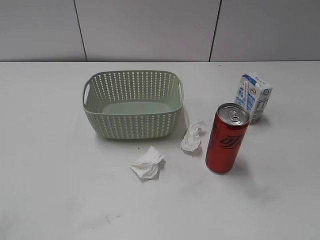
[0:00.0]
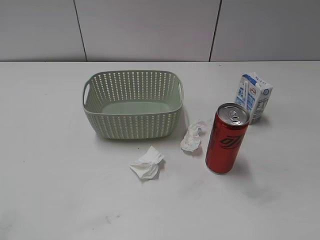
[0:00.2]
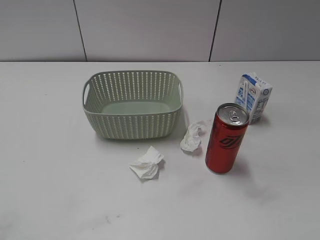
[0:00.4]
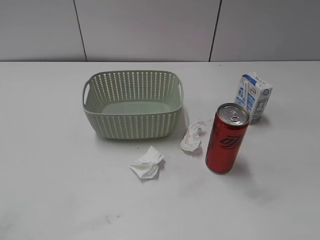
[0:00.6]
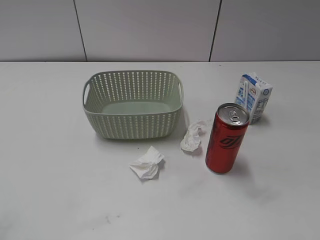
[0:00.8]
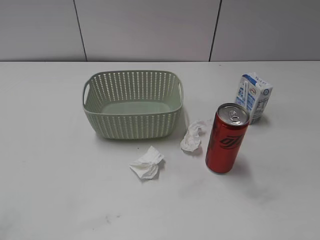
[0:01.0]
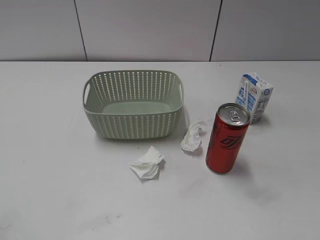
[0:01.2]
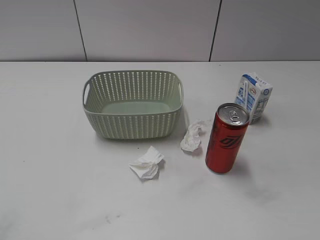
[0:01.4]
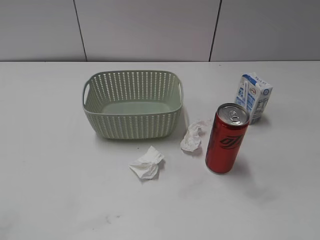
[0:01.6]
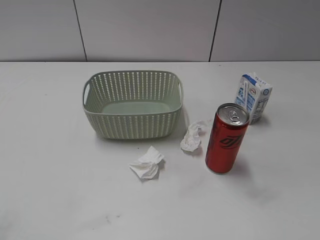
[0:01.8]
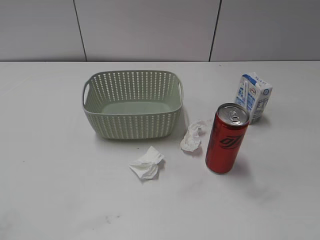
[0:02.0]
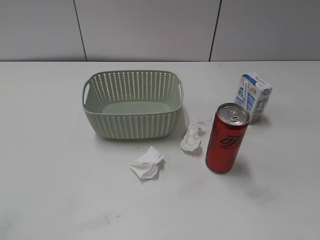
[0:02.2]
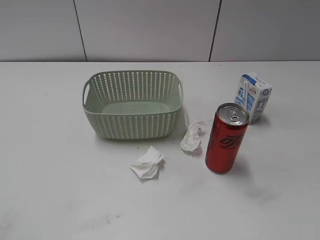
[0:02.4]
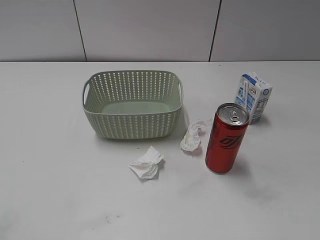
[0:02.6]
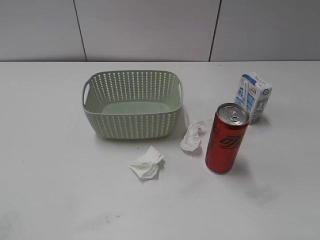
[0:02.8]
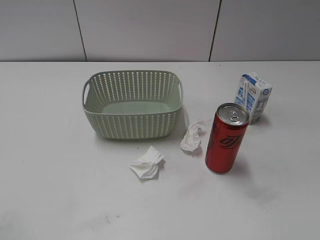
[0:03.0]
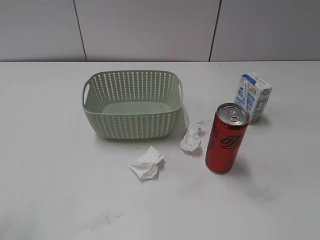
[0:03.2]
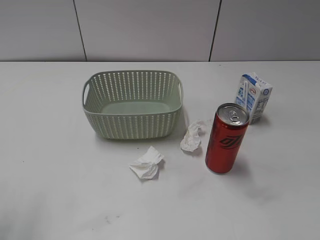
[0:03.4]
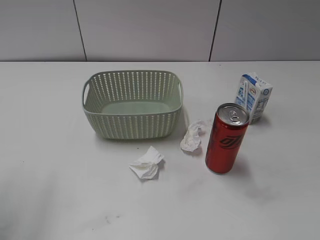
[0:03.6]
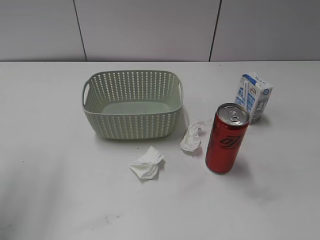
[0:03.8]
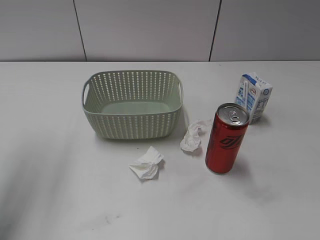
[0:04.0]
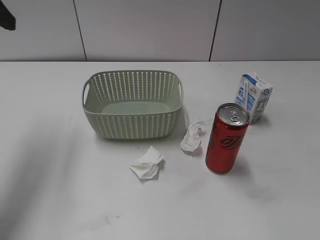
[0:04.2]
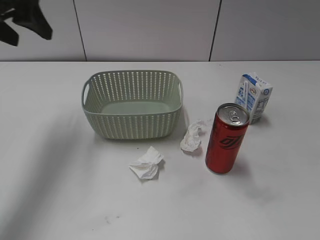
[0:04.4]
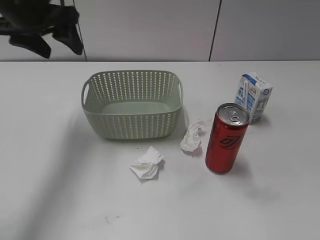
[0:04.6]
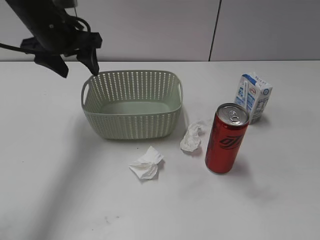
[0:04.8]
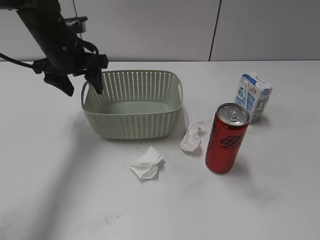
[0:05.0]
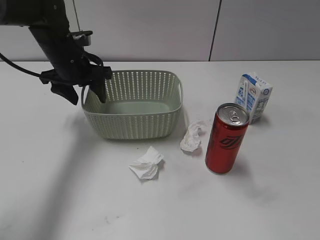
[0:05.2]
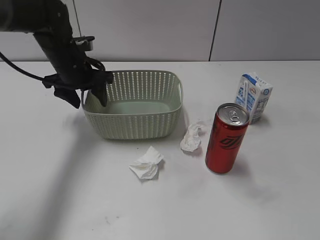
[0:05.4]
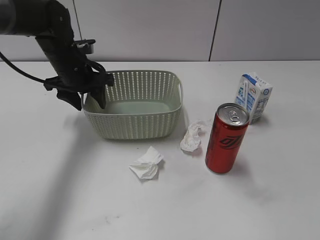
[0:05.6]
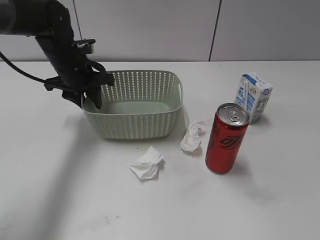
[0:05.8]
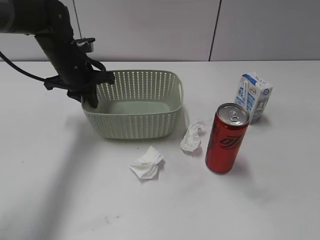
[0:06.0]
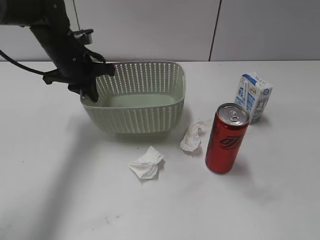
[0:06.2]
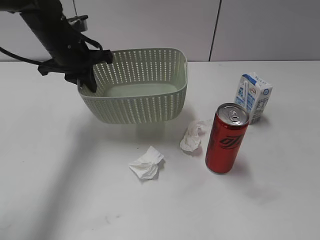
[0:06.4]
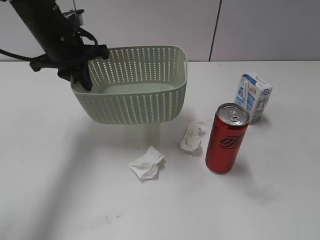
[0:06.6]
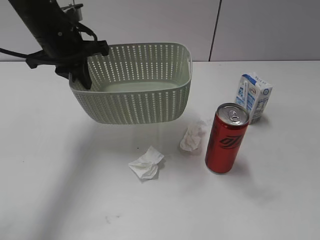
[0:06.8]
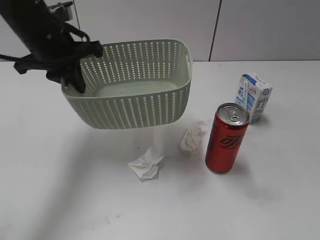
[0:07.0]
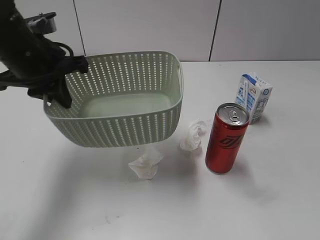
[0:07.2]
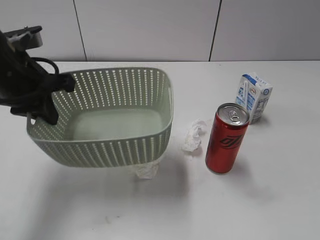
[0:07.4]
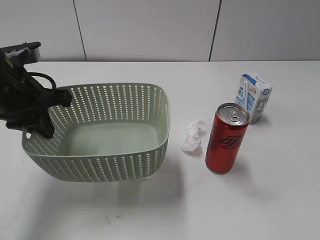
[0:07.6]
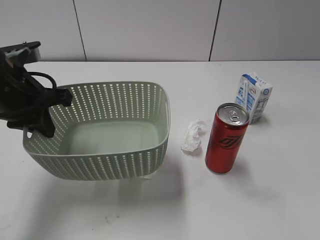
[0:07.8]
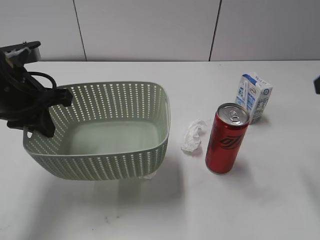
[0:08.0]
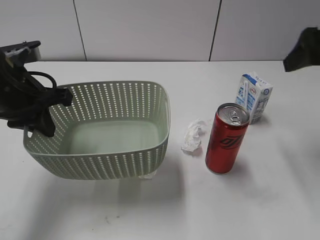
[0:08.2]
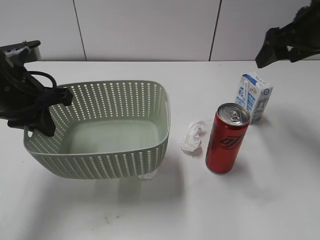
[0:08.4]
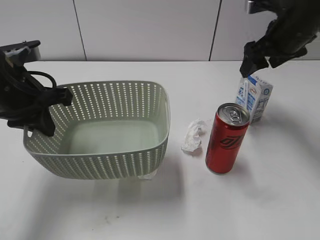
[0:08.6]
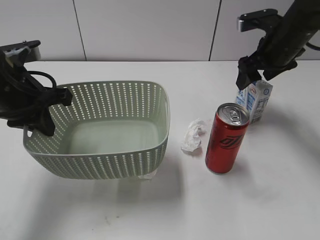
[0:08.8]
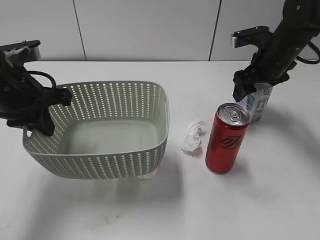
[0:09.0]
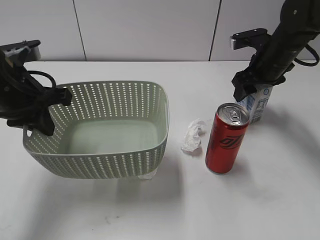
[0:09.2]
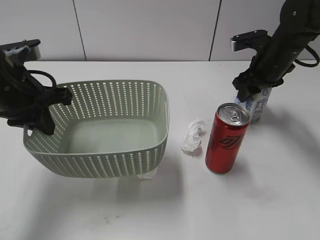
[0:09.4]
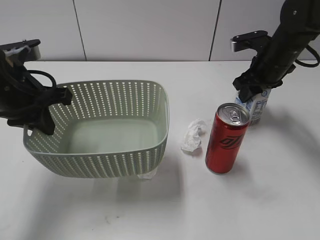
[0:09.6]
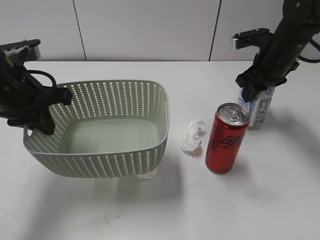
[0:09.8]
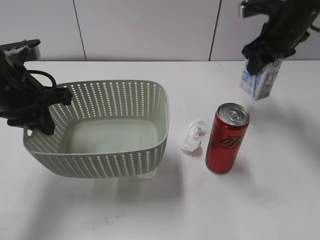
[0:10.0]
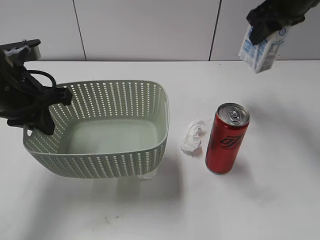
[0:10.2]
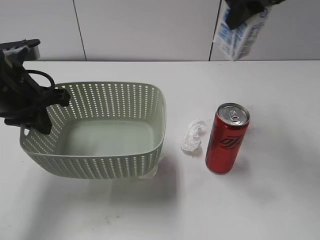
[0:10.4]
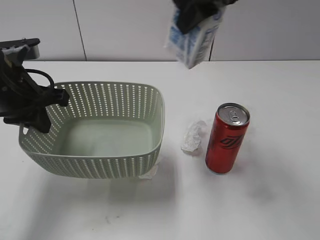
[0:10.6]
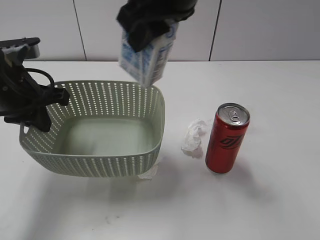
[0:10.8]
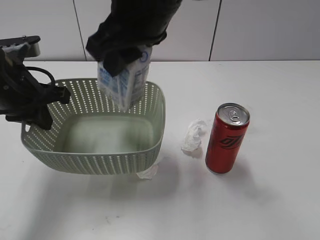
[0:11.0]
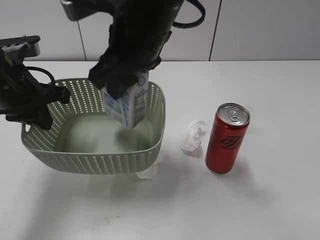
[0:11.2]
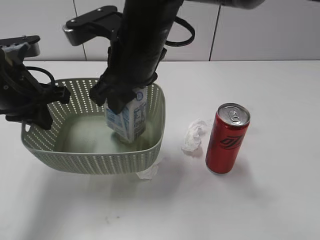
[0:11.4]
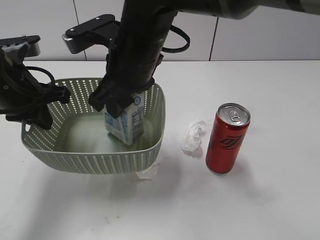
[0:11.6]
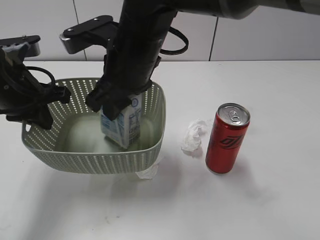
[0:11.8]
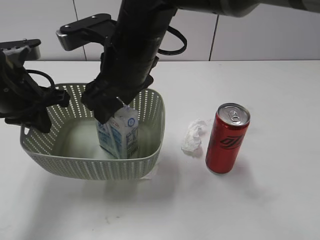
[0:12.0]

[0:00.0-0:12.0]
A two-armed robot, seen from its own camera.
Step, 4.2 to 6.0 s: Grasp the basket with left gripper.
Step, 6.2 to 7.6 s: Lift the basket with left gripper.
Step, 7.8 to 9.4 s: Grasp the milk with right gripper.
3.0 to 4.4 s: The left gripper heads forward, covering some 30 cm.
4.4 to 6.0 s: The left gripper is displaced downward, to the right and forward by some 20 cm, and closes.
6.0 to 7.6 s: The right gripper heads forward, covering approximately 10 cm. The left gripper goes approximately 15 cm backward.
7.6 to 9.0 s: The right gripper moves forward, about 35 cm.
9.0 to 10.4 s: The right gripper heads upward and to the left, covering roughly 20 cm, and closes up.
10.4 to 12.0 s: The right gripper goes some 20 cm to the left and downward, and opens its fingers.

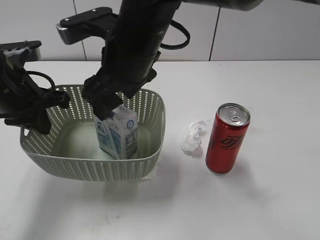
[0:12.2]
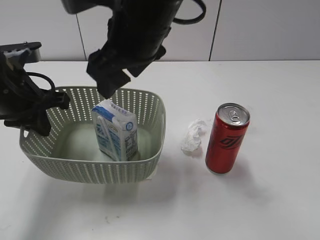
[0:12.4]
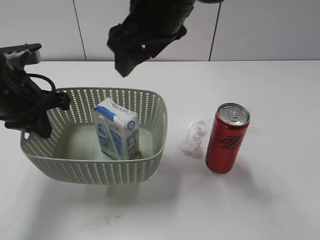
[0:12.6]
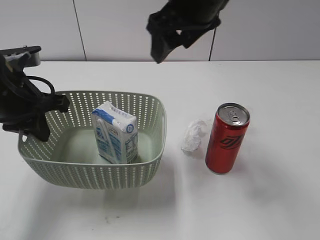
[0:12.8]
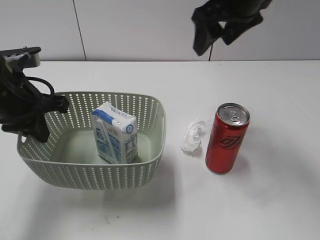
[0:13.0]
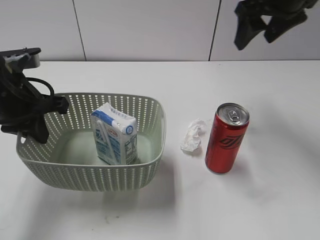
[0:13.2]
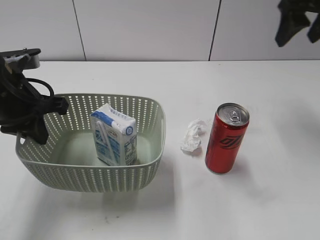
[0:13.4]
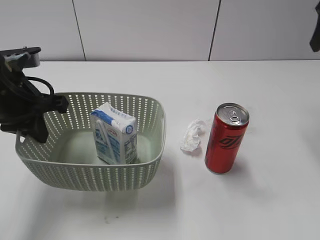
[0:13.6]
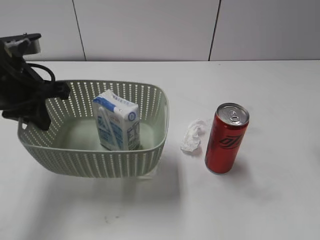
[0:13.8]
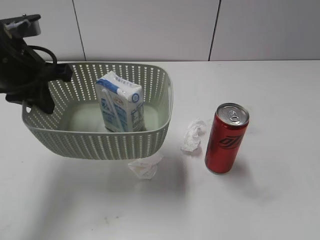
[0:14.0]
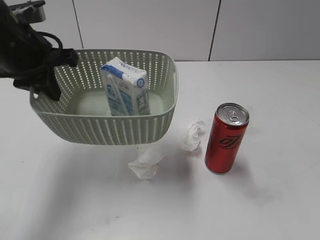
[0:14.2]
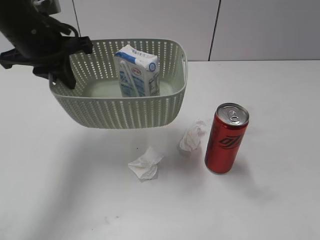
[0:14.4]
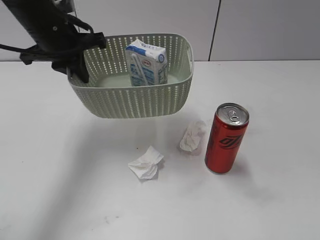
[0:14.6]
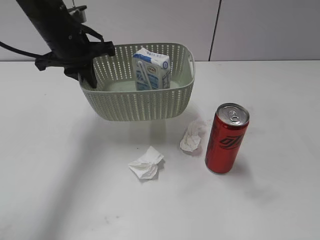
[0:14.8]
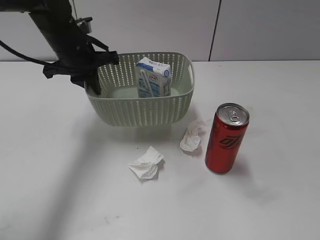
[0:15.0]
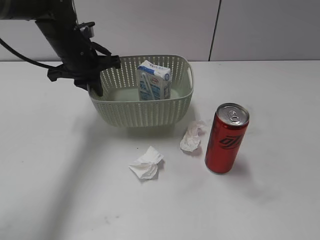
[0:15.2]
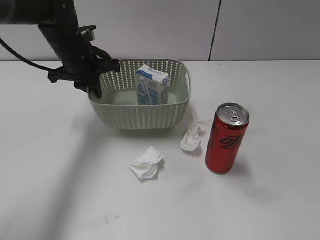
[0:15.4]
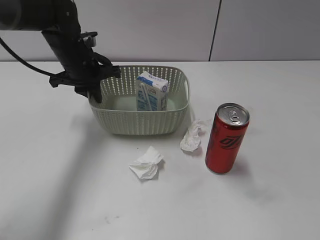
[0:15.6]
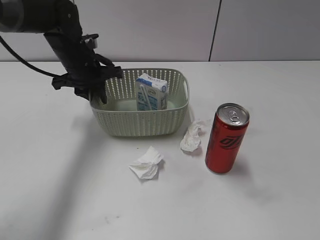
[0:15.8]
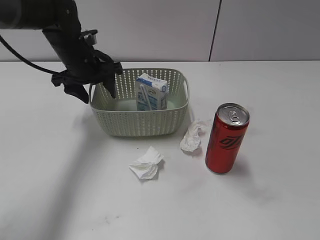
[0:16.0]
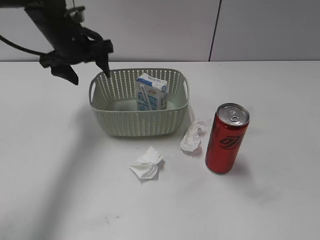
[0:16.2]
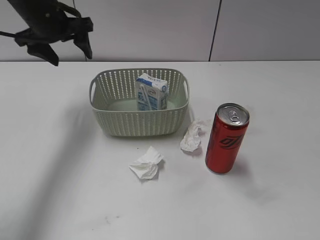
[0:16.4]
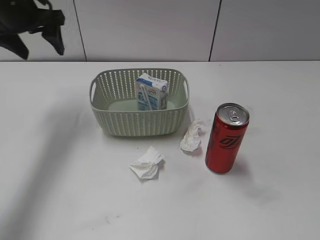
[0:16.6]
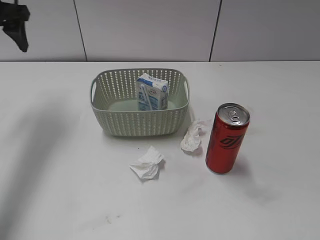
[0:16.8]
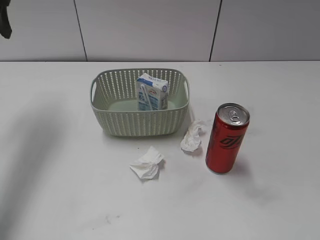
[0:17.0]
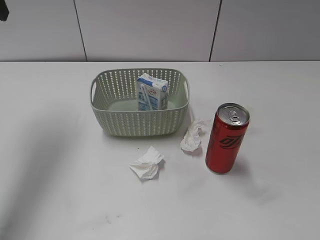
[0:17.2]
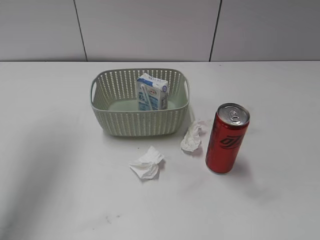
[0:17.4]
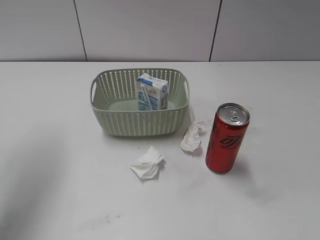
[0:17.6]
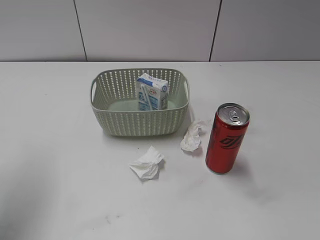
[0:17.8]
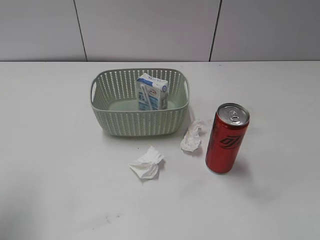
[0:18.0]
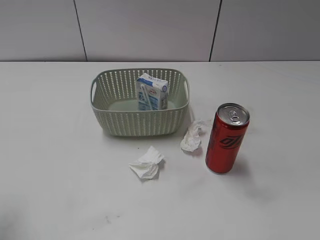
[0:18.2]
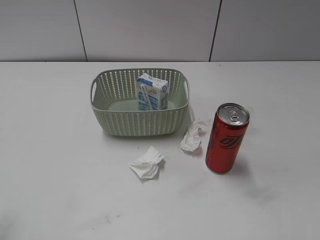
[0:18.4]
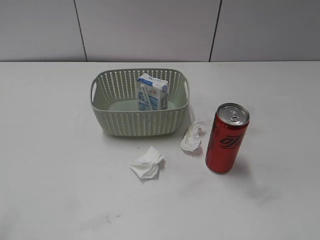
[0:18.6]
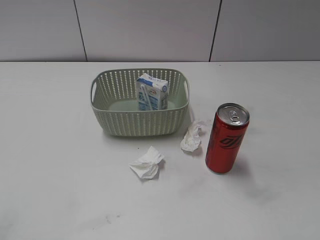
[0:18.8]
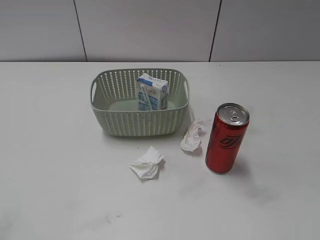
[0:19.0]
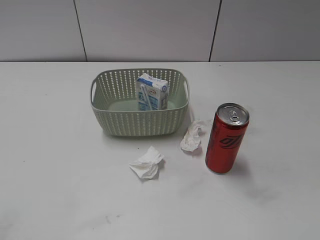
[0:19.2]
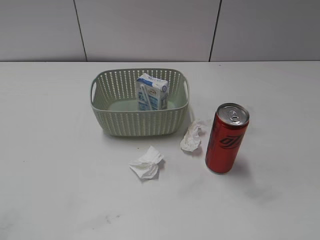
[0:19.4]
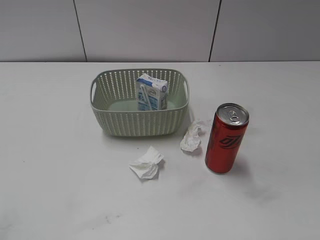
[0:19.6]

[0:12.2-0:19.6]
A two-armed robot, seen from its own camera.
Step, 12.4 to 16.2 s: Place the basket on the table with left gripper.
12.2 to 13.6 s: The right gripper is displaced to the right by roughly 35 cm.
13.6 to 15.2 s: The left gripper is displaced forward by roughly 15 cm; the right gripper goes roughly 35 cm backward.
15.2 to 16.6 s: The left gripper travels to the left and upward by about 15 cm, and opens.
16.6 to 18.2 s: The left gripper is displaced backward by some 30 cm.

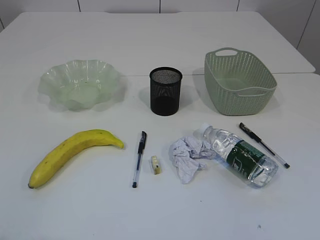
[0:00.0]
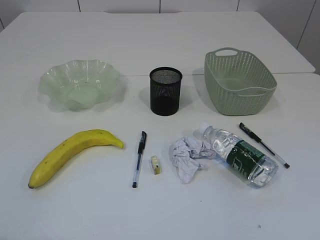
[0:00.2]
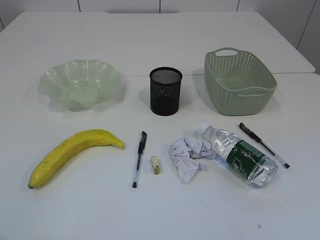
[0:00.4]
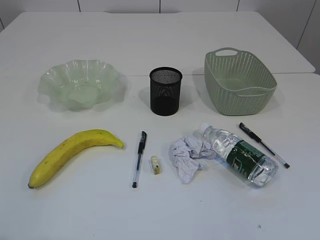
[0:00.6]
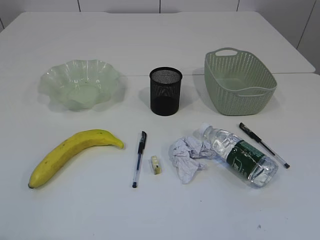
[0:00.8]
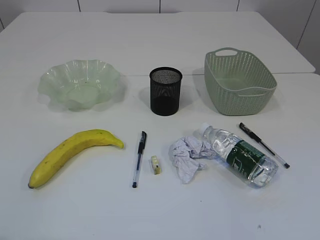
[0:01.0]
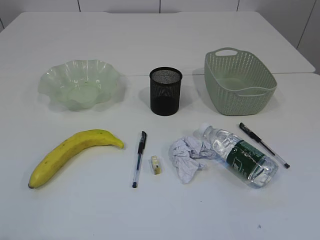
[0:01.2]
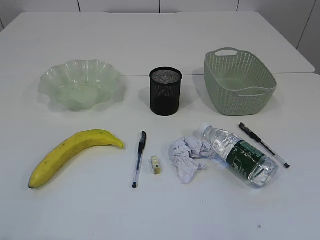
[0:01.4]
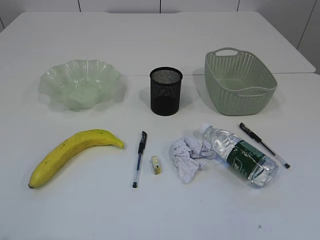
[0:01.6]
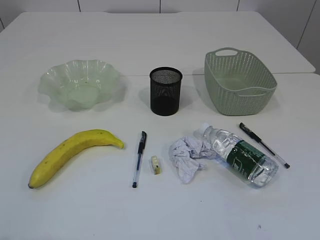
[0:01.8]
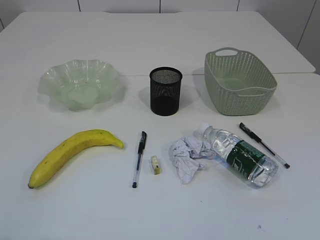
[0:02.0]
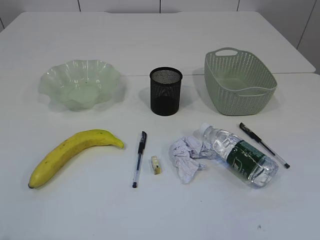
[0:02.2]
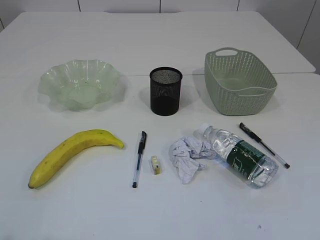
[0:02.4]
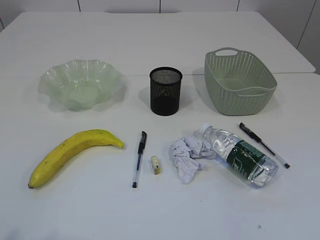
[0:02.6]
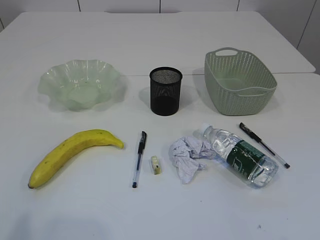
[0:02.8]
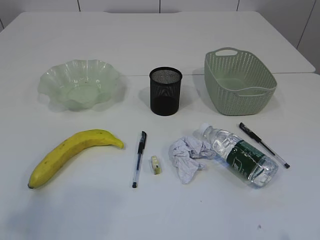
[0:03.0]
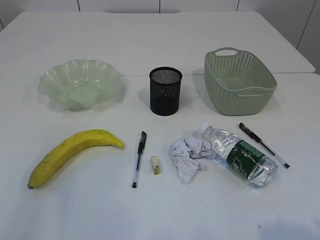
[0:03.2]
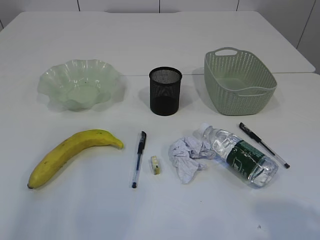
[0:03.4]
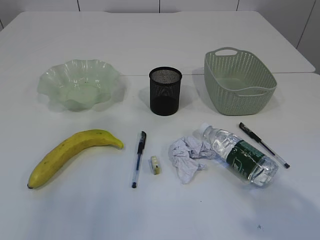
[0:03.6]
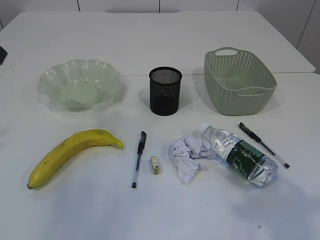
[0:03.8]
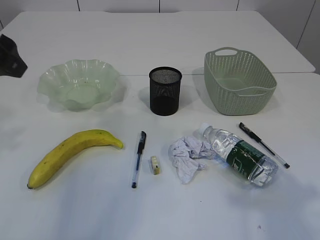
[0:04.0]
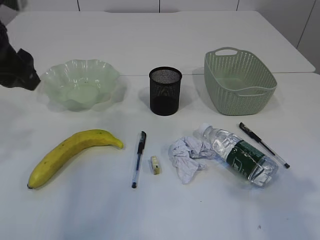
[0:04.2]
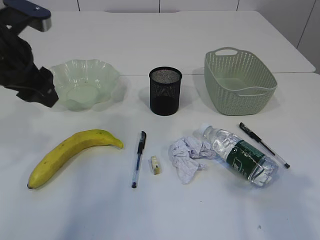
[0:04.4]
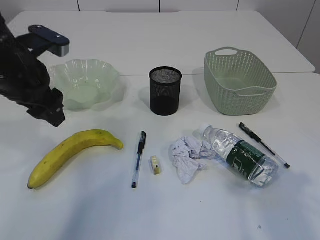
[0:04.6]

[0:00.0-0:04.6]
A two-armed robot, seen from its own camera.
1.6 to 3.0 s: The left gripper is displaced forward by some 5 cm.
3.0 to 4.6 s: The right gripper travels forward by roughly 15 cm. Meanwhile the left gripper travels forward by about 30 cm.
